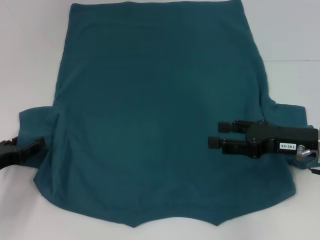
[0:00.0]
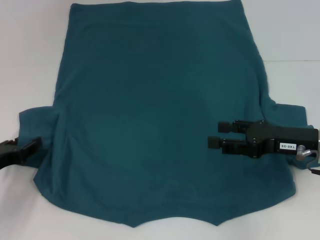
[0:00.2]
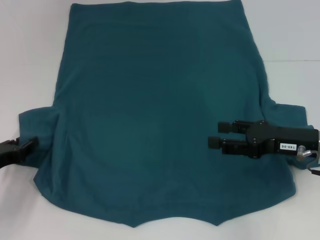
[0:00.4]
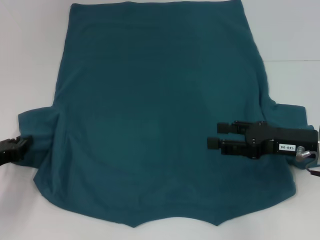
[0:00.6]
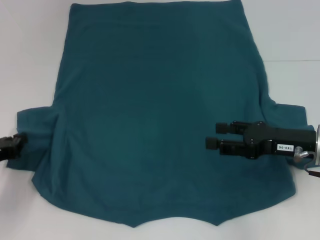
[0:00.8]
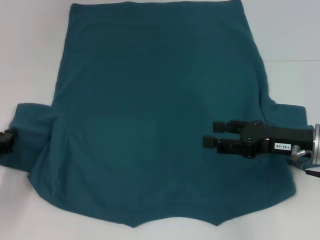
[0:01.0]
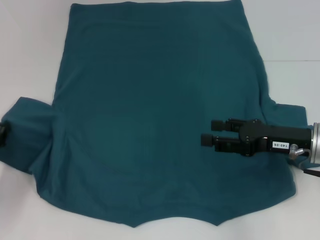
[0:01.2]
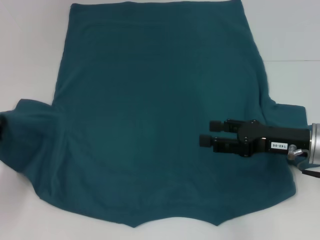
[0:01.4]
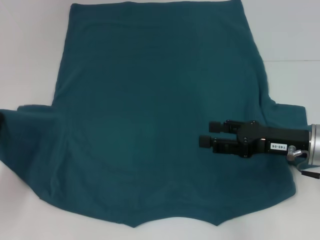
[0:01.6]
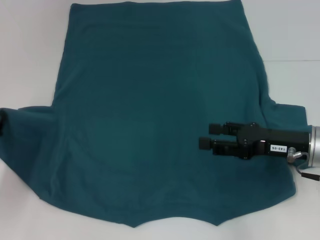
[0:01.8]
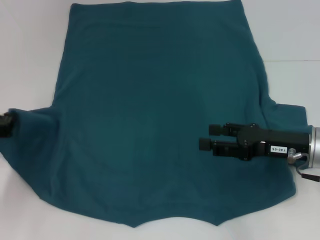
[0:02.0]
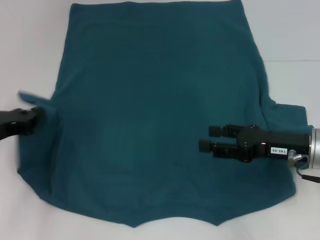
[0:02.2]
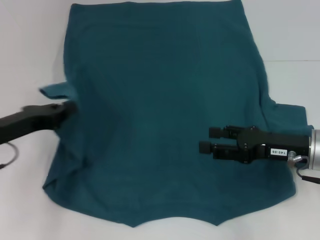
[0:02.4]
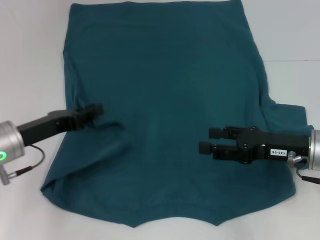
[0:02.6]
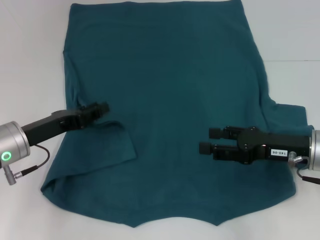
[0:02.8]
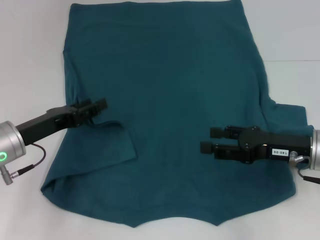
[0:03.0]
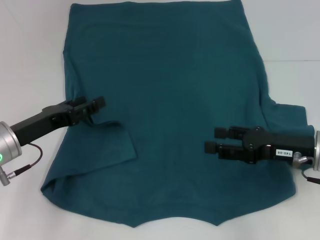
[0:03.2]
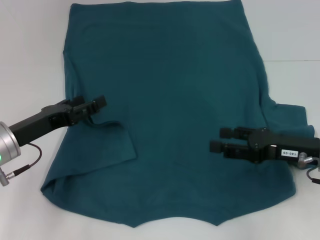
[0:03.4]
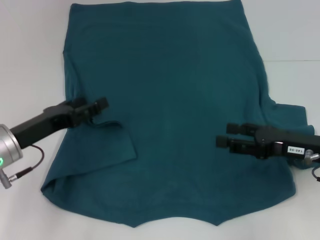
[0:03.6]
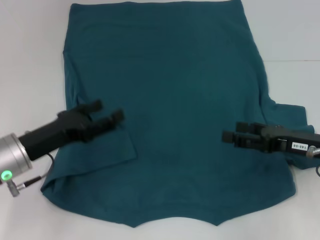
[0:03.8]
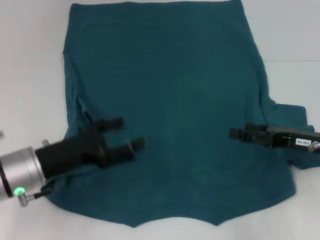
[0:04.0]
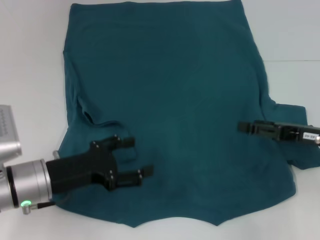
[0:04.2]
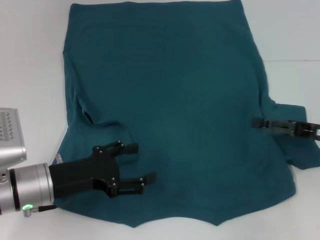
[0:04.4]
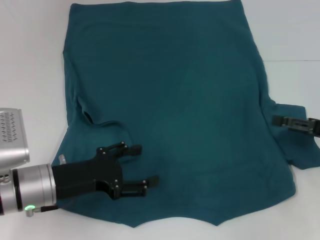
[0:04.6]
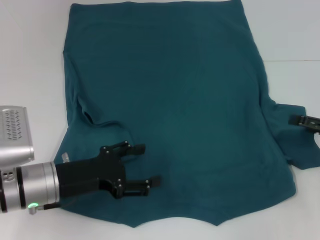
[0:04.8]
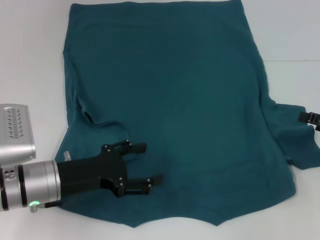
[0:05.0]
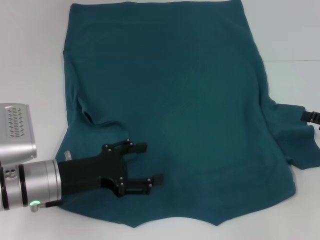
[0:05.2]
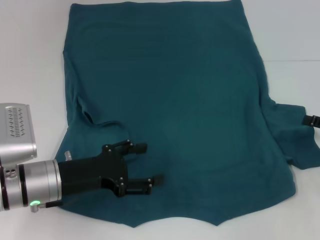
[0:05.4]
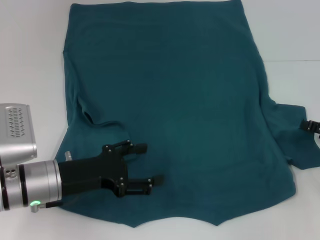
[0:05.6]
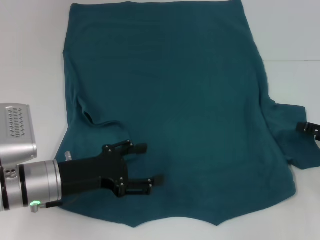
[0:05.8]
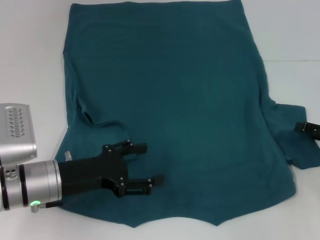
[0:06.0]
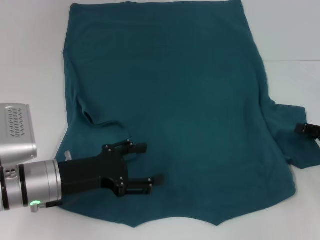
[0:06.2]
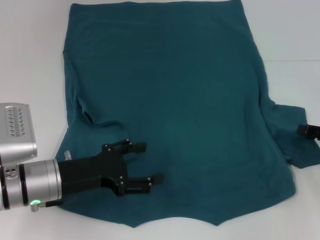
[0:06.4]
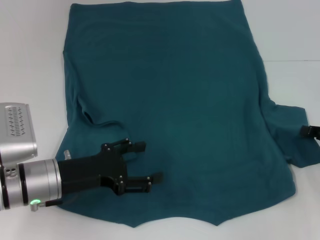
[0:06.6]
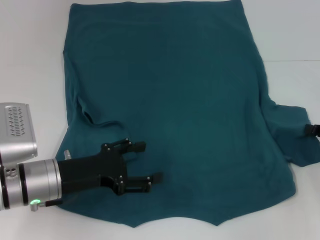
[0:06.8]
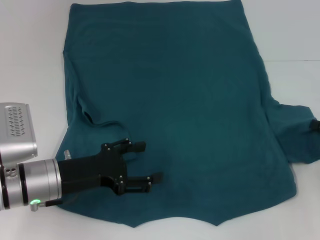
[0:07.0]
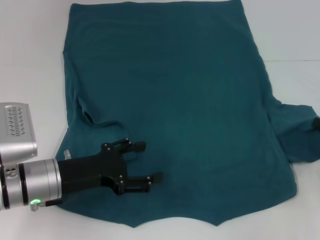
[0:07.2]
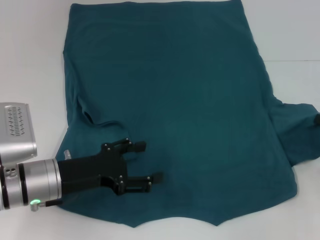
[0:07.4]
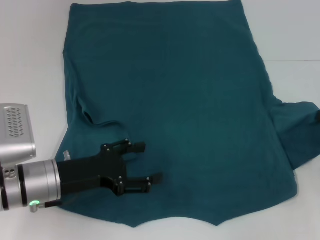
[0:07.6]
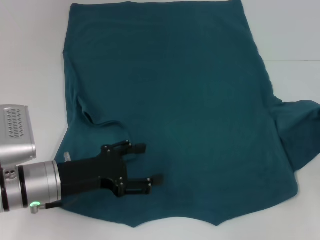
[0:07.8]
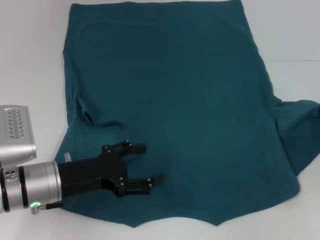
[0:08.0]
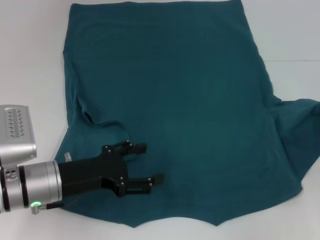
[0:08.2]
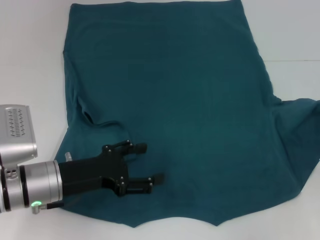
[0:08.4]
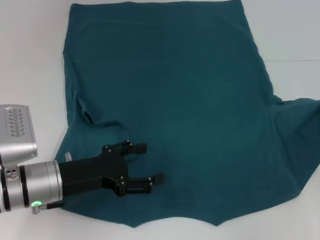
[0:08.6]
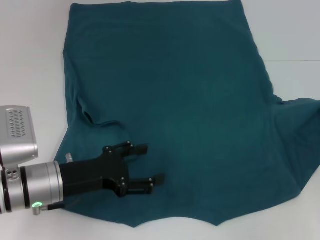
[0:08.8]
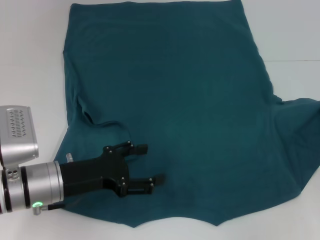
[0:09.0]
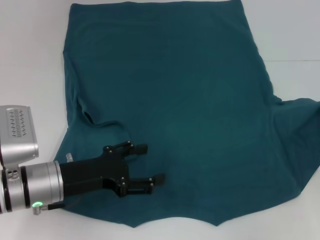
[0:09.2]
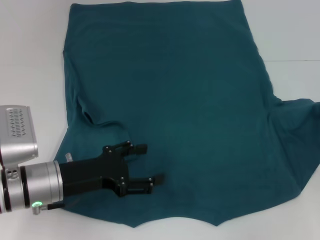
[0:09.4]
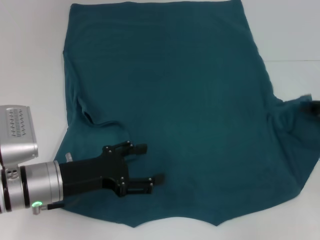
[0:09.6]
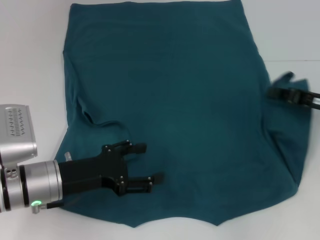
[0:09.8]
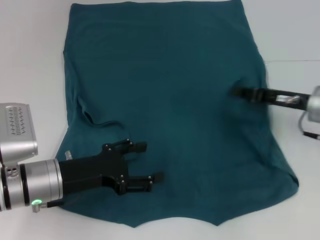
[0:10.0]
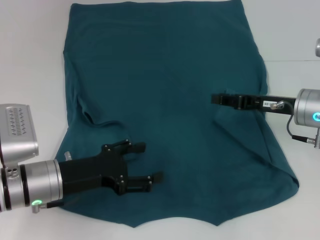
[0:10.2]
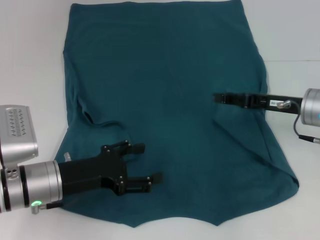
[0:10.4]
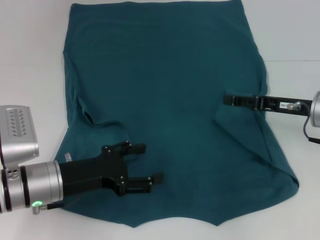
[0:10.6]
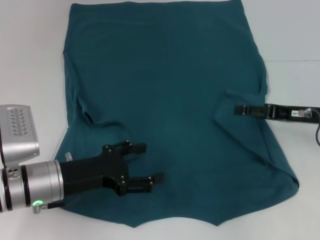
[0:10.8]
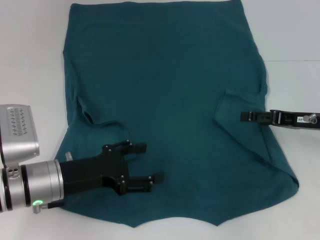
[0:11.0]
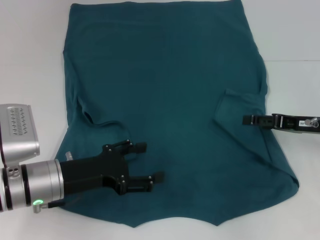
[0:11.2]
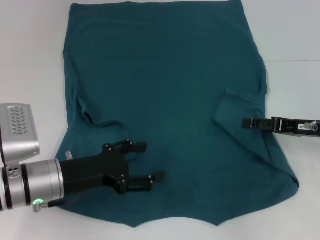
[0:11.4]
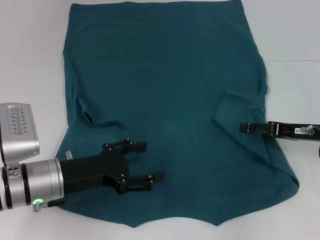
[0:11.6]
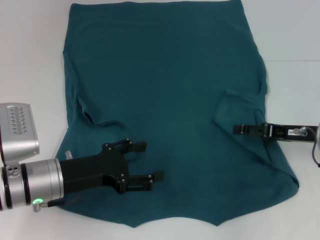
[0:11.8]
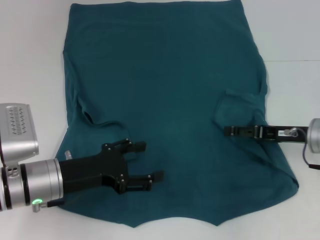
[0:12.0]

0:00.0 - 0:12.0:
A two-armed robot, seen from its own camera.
Step, 0:00.0 - 0:04.0: Fold the bottom left sleeve with your left hand.
0:00.0 - 0:01.6: The left gripper moves some 5 cm, and closes up.
0:01.6 - 0:03.0: The left gripper moves to the right, roughly 10 cm.
0:03.0 - 0:04.4: The left gripper moves about 5 cm, and opens its fingers. Meanwhile the right gripper goes about 5 cm to the right.
0:04.4 - 0:06.0: The right gripper shifts roughly 5 cm to the right.
0:06.0 - 0:07.6: The right gripper closes.
0:07.6 - 0:09.0: The grippers stay close to where they were, moving slightly.
0:09.0 - 0:10.4: The right gripper heads to the left, covering approximately 15 cm, and opens up.
0:10.4 - 0:12.0: The right gripper opens its fingers.

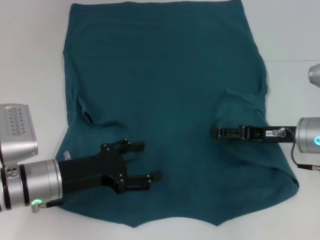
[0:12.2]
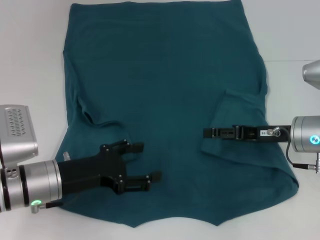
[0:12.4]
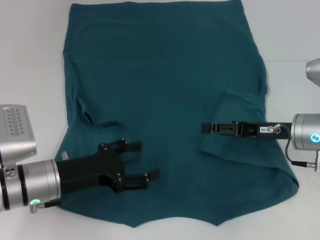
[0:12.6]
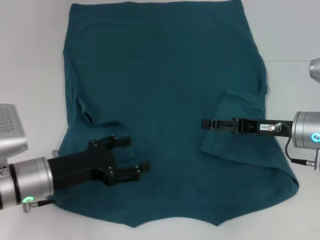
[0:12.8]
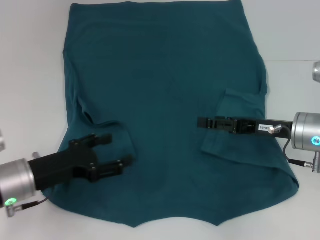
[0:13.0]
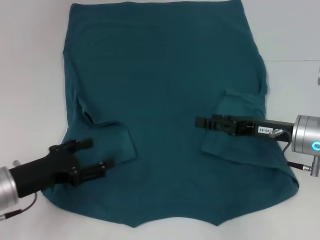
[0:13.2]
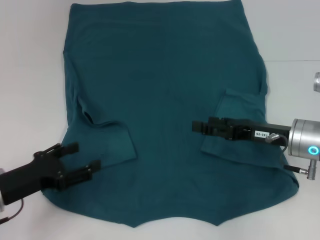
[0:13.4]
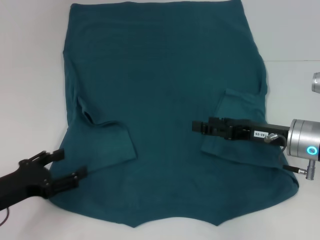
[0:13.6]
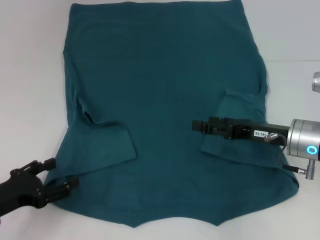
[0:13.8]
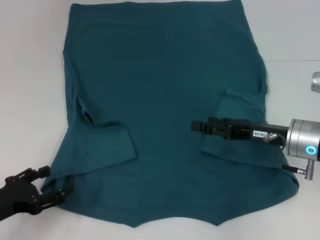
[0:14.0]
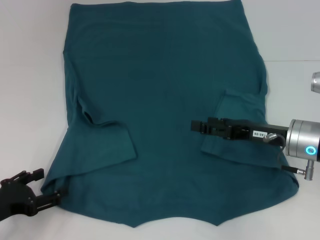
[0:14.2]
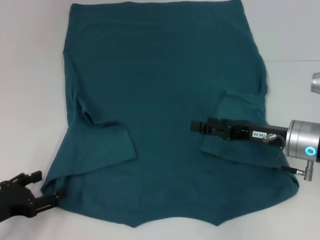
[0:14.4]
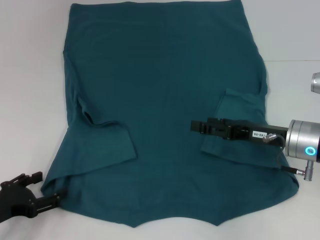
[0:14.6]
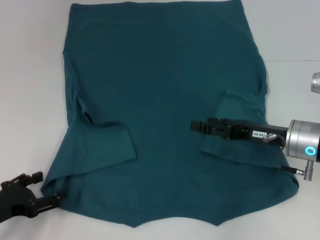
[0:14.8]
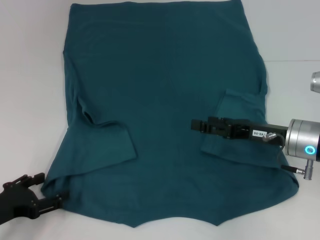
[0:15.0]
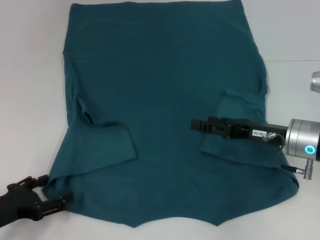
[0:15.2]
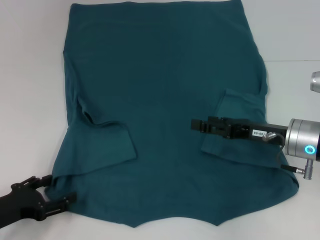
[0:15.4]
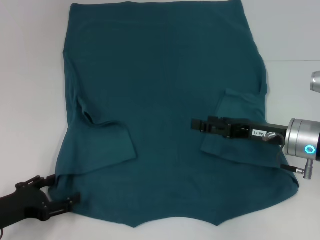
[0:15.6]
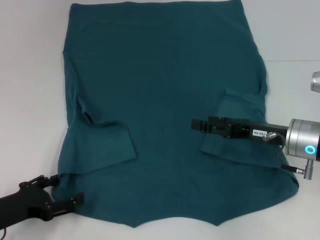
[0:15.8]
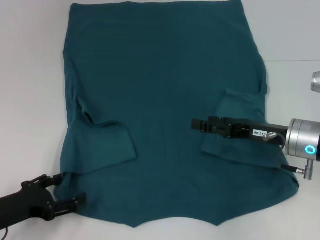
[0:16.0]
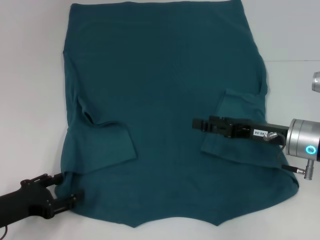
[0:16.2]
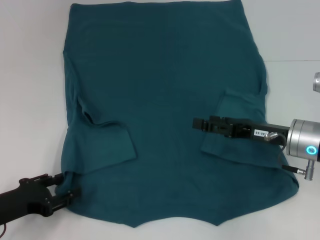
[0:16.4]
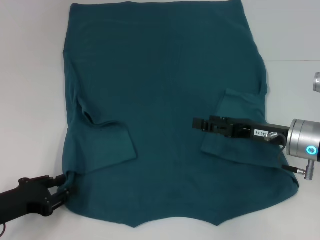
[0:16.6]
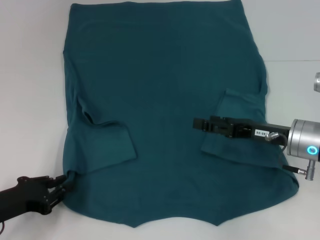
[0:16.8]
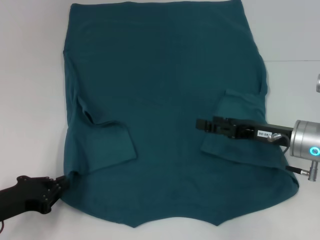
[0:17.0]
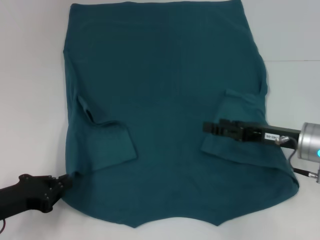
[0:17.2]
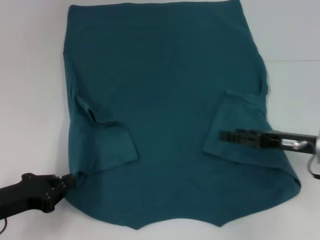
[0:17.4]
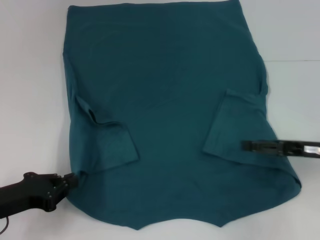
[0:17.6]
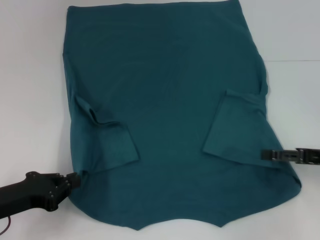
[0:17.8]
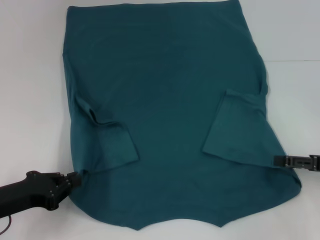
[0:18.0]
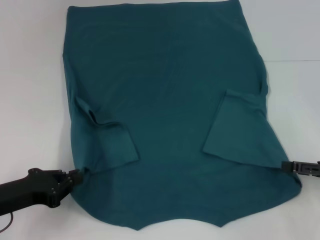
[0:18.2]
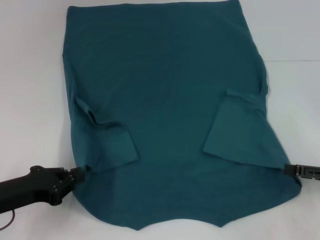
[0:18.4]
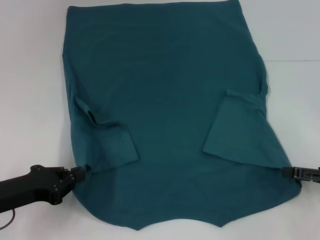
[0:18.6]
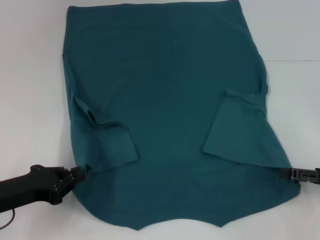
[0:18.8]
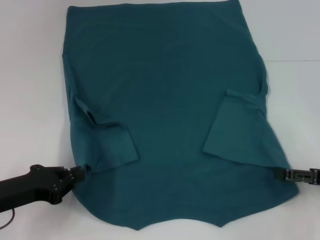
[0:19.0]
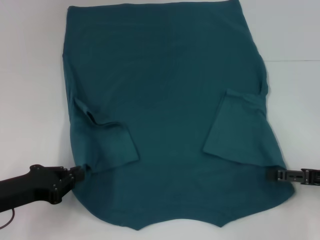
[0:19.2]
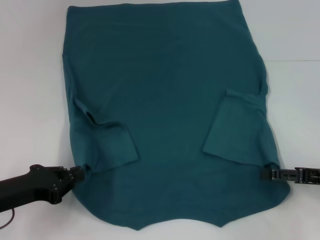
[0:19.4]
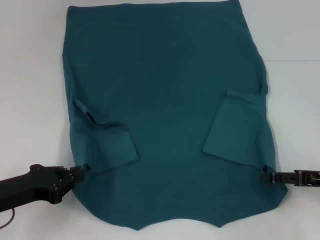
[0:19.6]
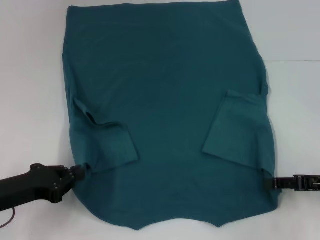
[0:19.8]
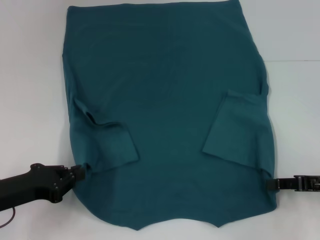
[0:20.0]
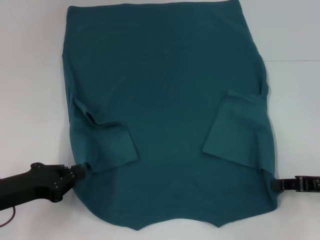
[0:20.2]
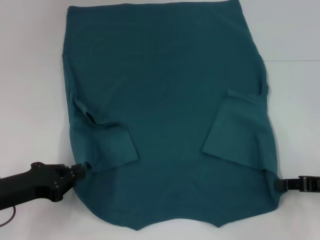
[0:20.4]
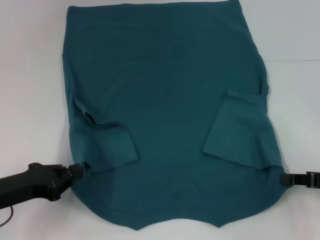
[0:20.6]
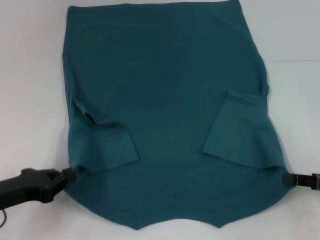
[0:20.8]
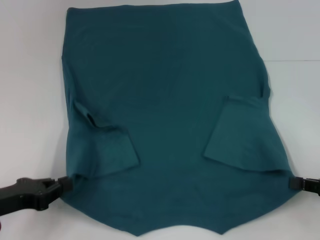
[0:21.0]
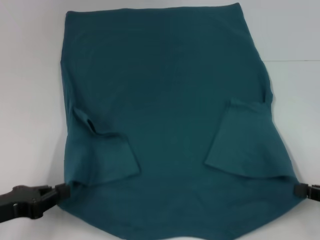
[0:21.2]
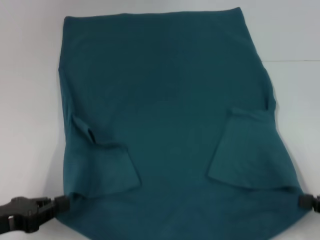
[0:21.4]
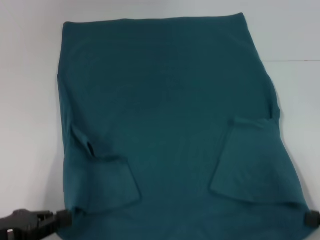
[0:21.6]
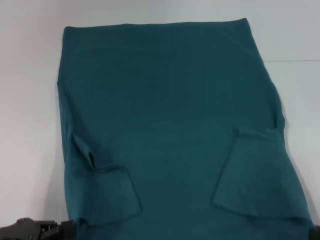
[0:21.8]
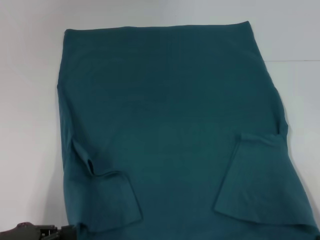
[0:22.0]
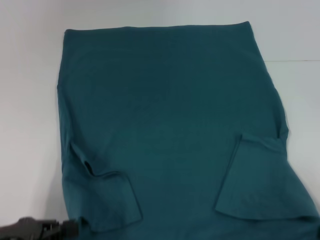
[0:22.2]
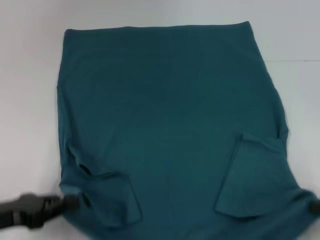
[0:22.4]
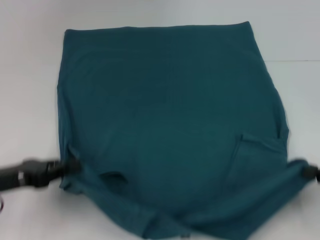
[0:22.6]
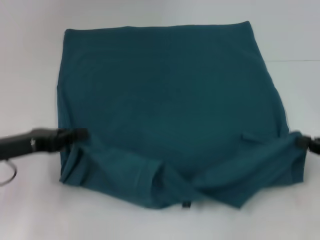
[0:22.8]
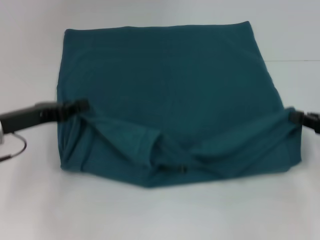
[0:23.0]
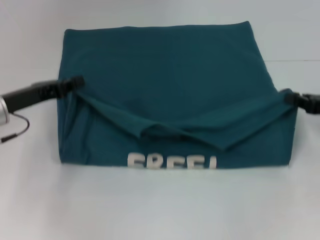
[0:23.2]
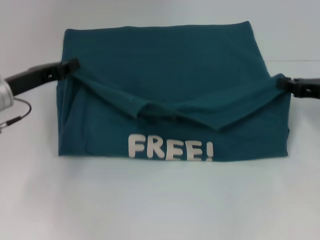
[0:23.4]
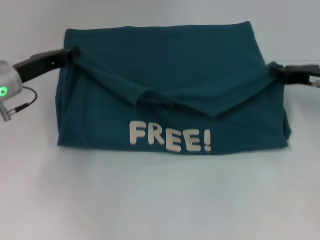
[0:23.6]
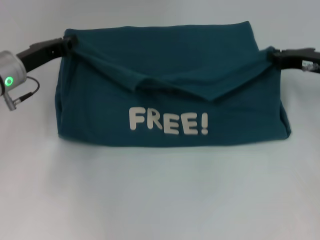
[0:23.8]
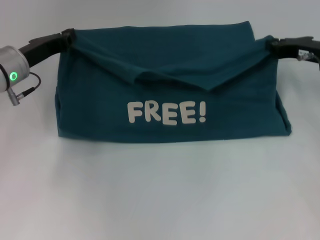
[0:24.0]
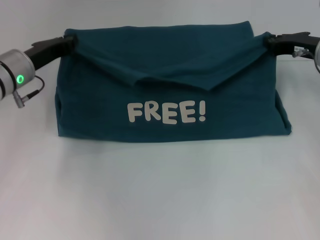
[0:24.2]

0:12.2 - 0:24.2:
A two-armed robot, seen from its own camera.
Step, 0:13.2 - 0:18.0: Grab the bottom left corner with your left hand.
Step, 0:18.2 - 0:20.8: Grab the bottom right corner with your right hand.
0:12.2 - 0:13.8: The left gripper shifts some 10 cm to the left and backward.
0:13.8 - 0:15.2: The grippers move only a little.
0:15.2 - 0:16.6: The left gripper closes its fingers.
0:16.6 - 0:18.2: The right gripper is displaced to the right and backward by about 15 cm. Meanwhile the left gripper closes its fingers.
0:18.2 - 0:19.8: The right gripper closes up.
0:19.8 - 0:21.2: The right gripper ends up roughly 5 cm from where it was, and closes.
0:21.2 - 0:22.6: The right gripper moves about 10 cm backward and comes back.
0:22.6 - 0:24.2: The right gripper goes about 25 cm forward and to the left. Meanwhile the left gripper travels forward by some 15 cm.
